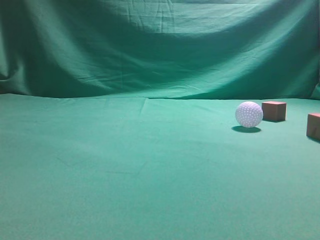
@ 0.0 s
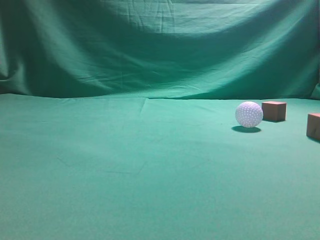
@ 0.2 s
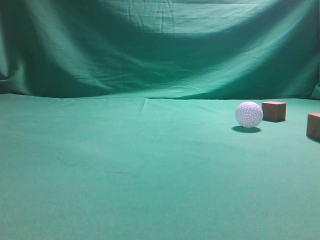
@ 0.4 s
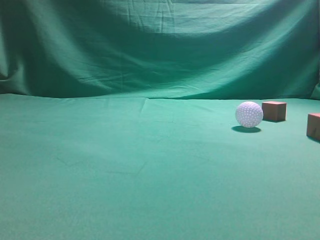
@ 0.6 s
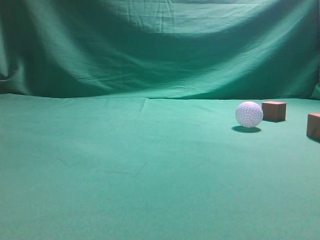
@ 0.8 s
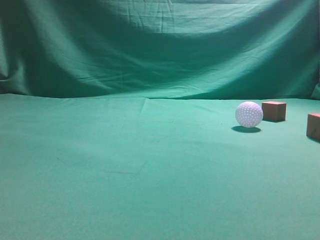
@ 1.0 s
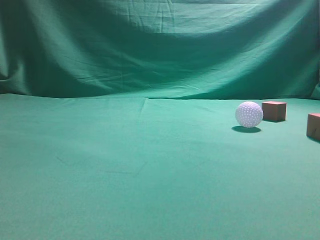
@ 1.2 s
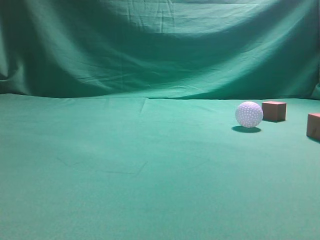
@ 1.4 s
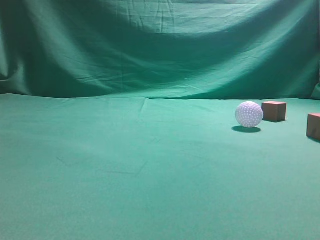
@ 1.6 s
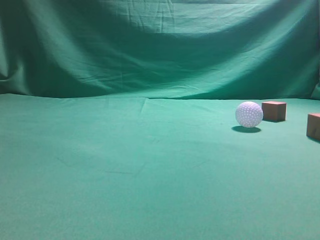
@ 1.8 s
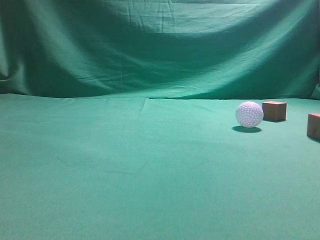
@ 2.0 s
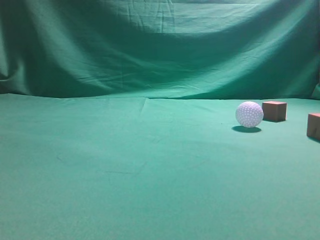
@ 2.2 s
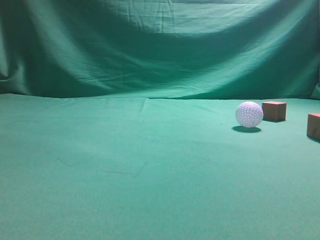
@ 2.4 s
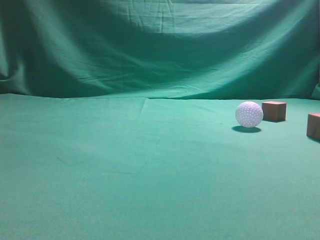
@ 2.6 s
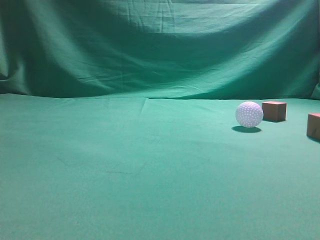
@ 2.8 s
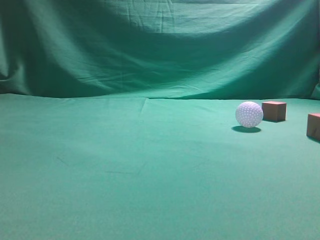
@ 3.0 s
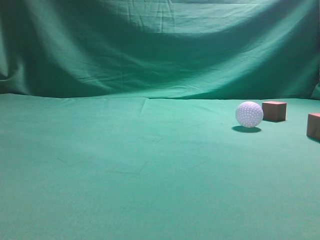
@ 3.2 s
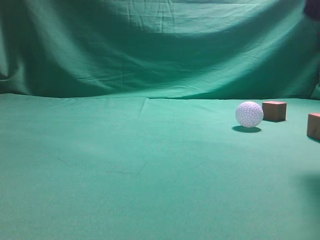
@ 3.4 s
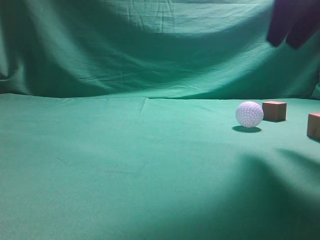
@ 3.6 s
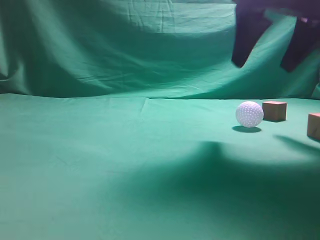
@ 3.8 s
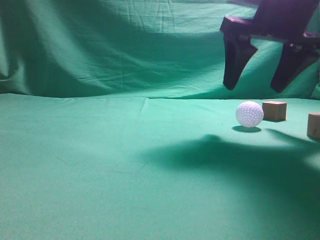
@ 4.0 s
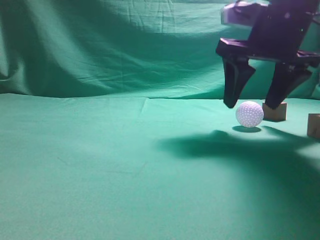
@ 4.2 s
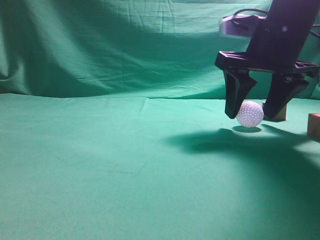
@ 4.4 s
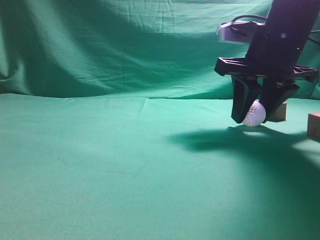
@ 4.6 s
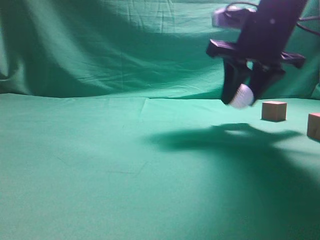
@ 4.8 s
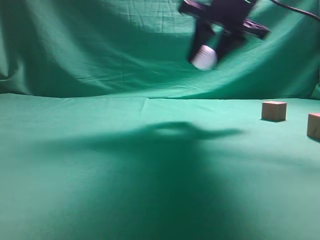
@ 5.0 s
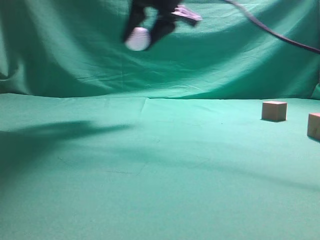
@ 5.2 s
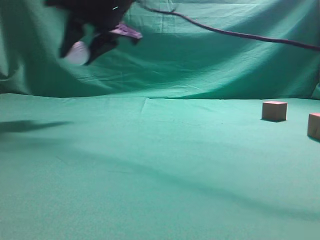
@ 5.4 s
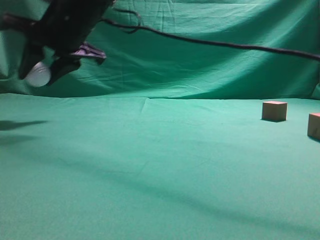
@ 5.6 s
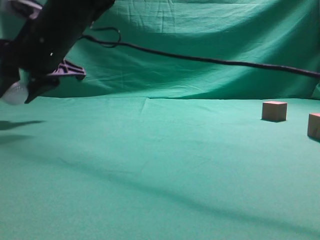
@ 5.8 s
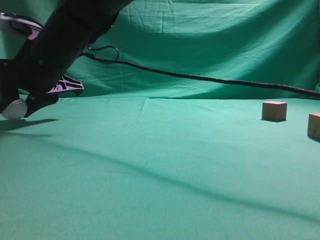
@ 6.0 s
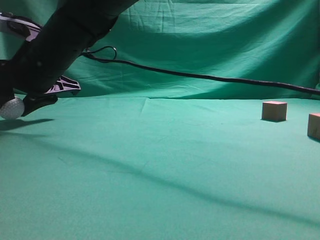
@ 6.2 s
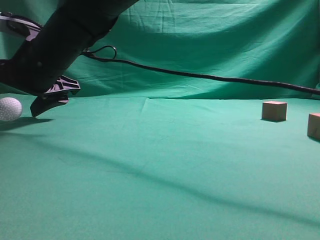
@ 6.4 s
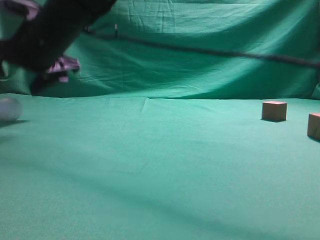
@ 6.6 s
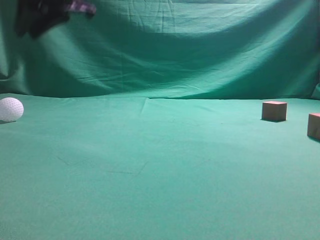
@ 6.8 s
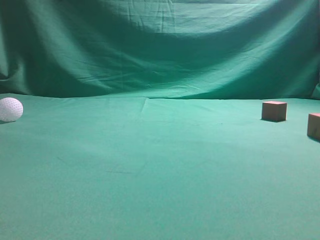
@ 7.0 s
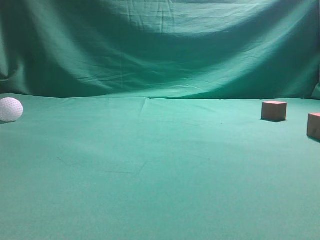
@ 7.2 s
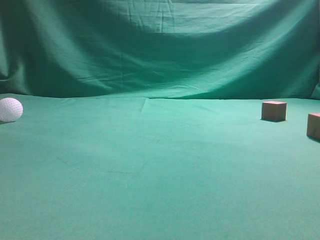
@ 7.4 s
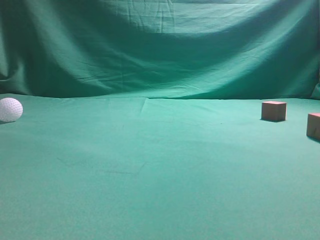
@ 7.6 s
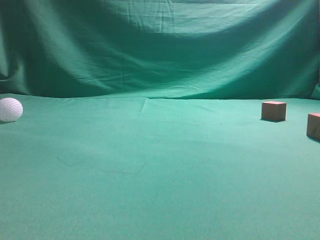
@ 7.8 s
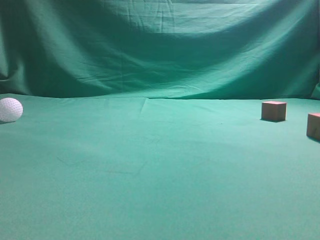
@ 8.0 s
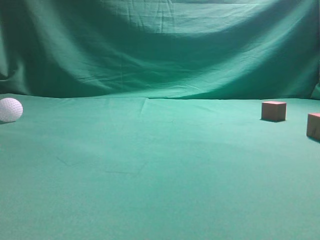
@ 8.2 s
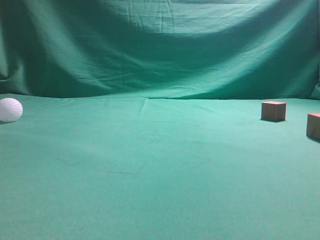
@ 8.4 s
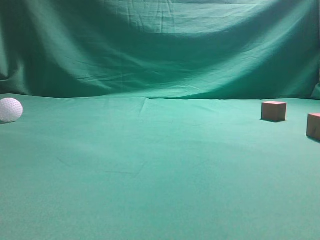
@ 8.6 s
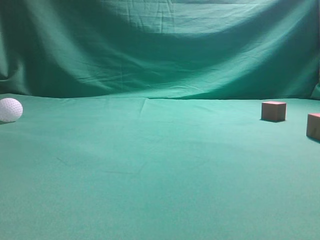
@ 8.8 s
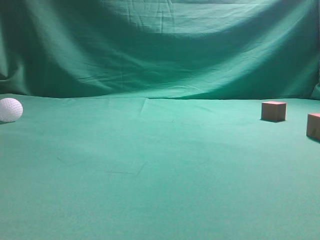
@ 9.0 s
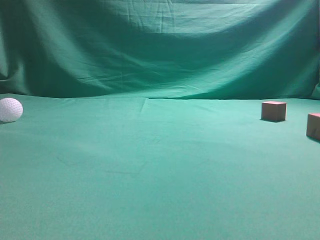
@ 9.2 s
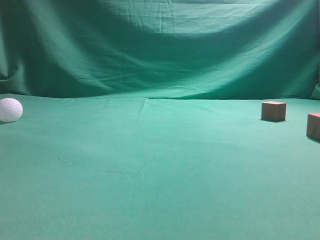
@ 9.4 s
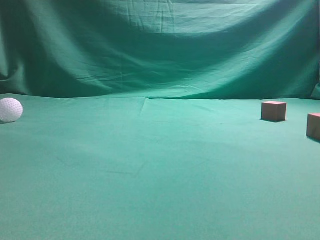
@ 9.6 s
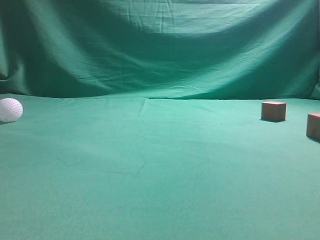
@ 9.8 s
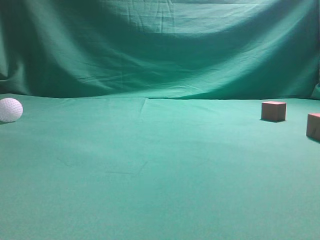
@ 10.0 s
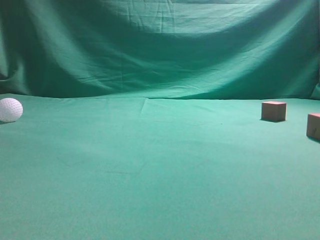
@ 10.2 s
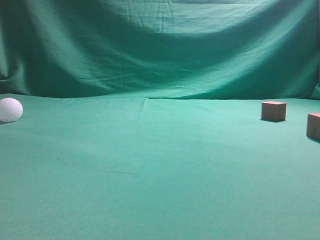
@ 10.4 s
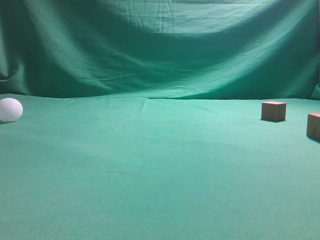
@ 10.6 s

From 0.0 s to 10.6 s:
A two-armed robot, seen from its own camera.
Step, from 0.0 s to 4.8 s: Grasp the spherical object on the right side.
From 3.0 s to 4.6 s: The right gripper shifts roughly 25 cm forward, downward and to the left, and opens.
From 4.6 s to 6.0 s: The right gripper heads to the left, covering roughly 30 cm.
From 6.0 s to 7.6 s: The right gripper goes some 50 cm upward and to the right, and closes.
